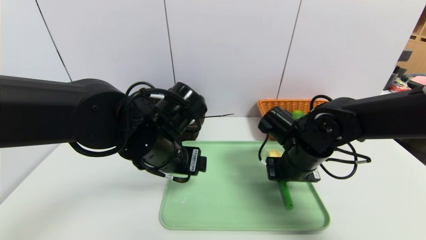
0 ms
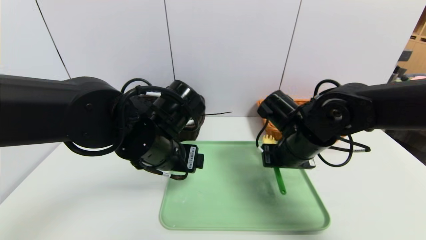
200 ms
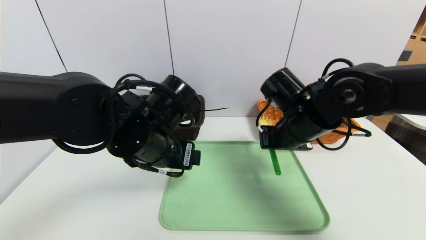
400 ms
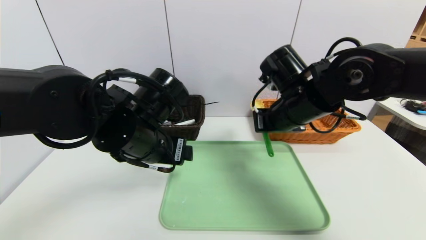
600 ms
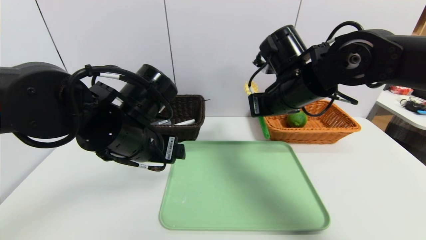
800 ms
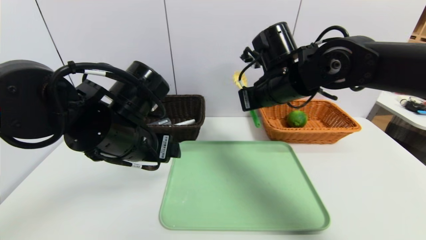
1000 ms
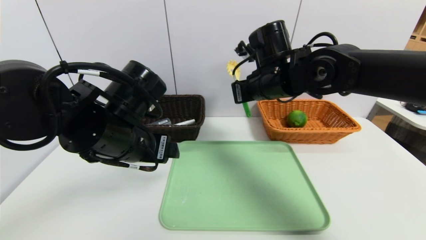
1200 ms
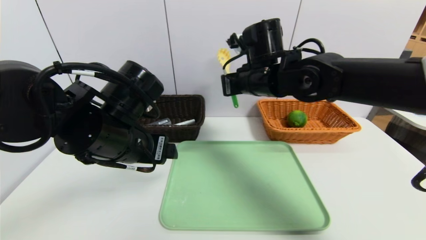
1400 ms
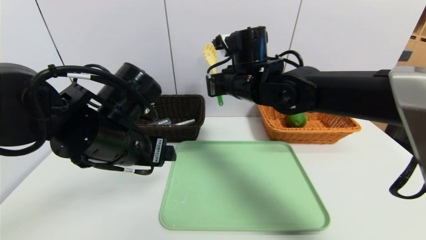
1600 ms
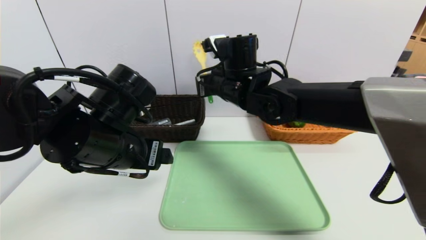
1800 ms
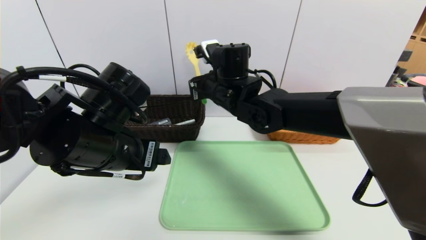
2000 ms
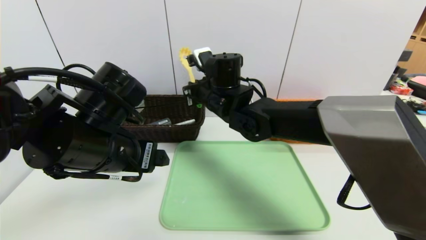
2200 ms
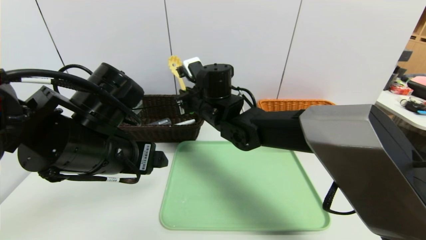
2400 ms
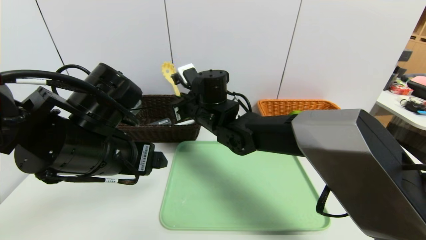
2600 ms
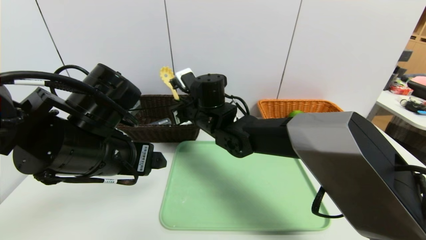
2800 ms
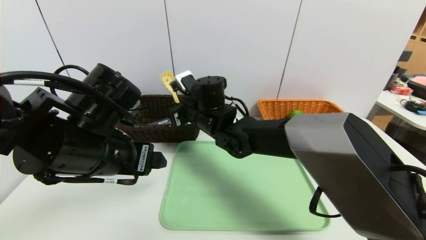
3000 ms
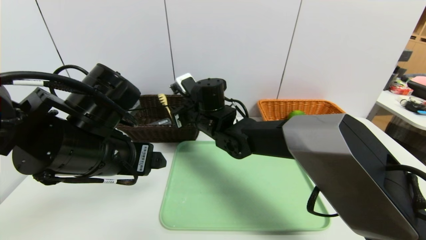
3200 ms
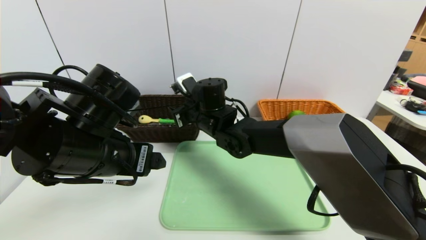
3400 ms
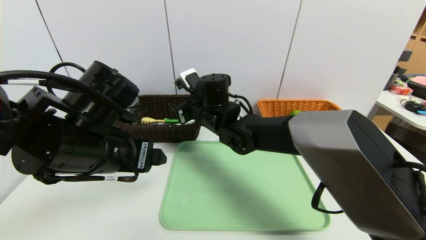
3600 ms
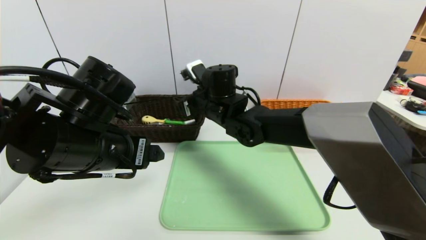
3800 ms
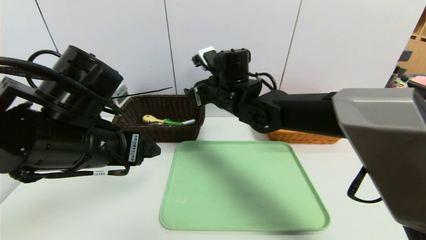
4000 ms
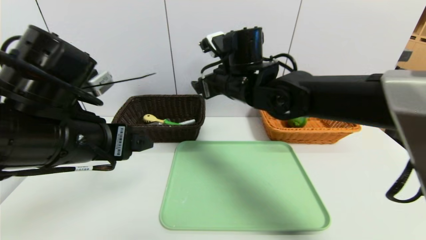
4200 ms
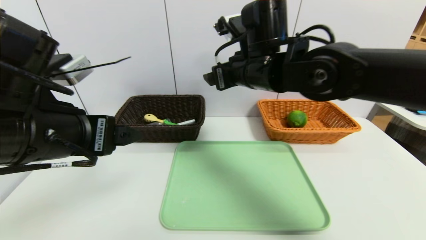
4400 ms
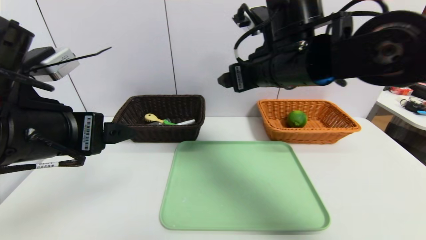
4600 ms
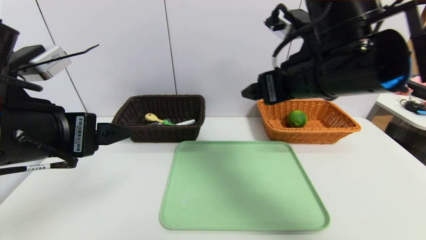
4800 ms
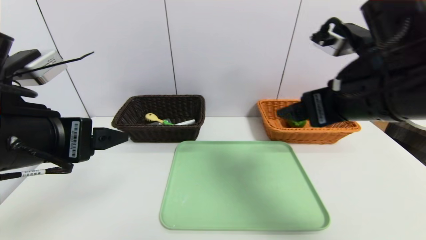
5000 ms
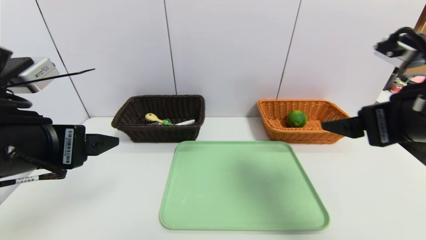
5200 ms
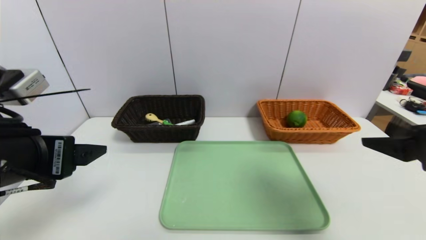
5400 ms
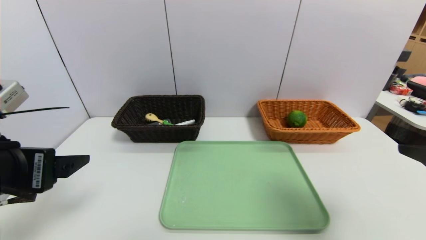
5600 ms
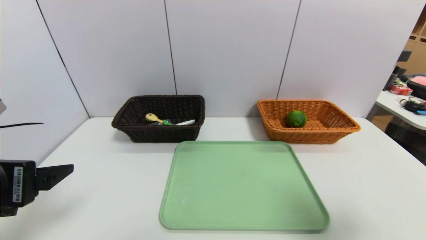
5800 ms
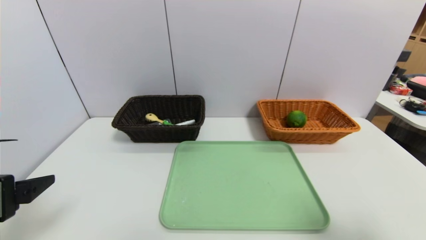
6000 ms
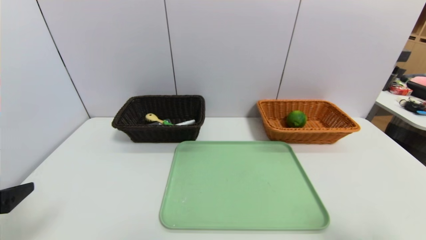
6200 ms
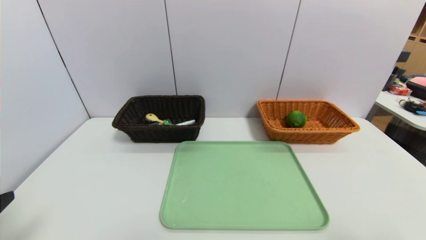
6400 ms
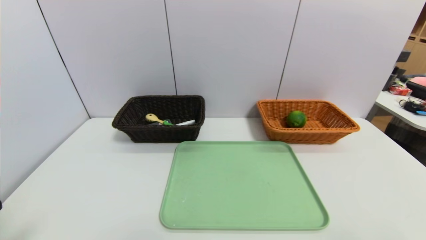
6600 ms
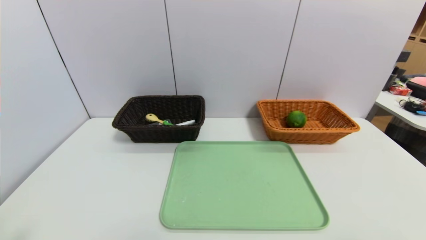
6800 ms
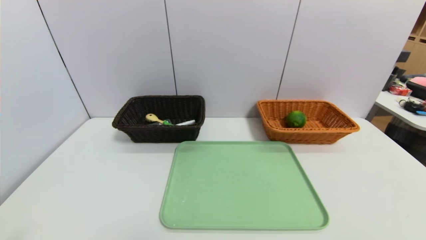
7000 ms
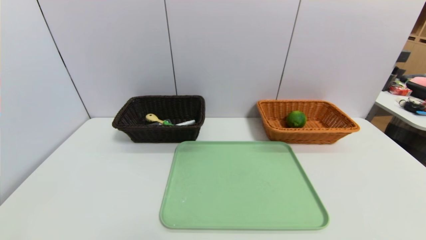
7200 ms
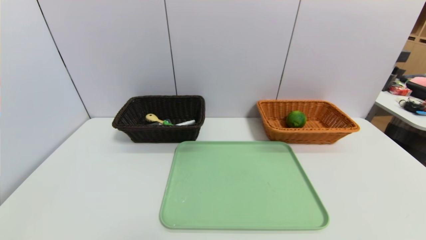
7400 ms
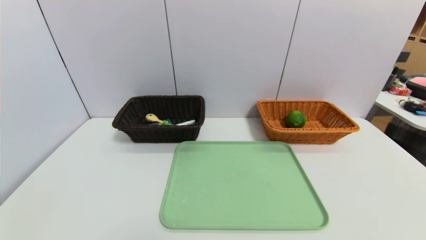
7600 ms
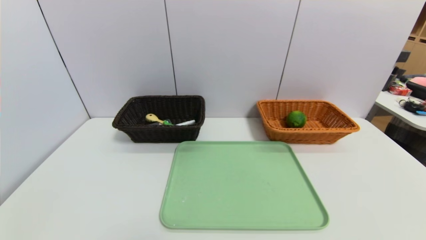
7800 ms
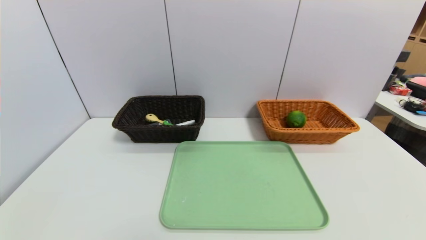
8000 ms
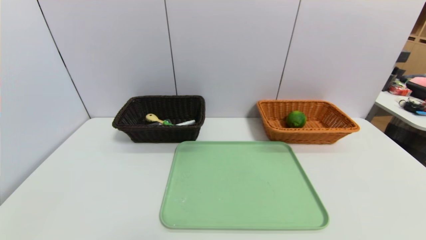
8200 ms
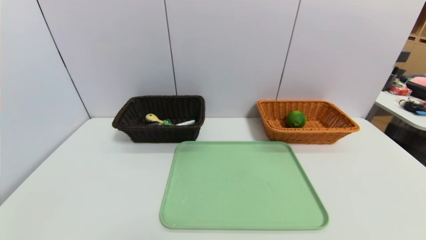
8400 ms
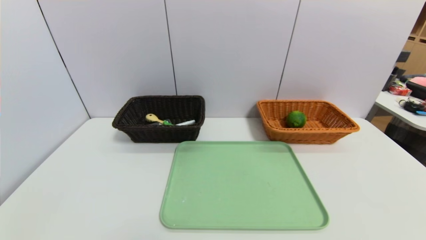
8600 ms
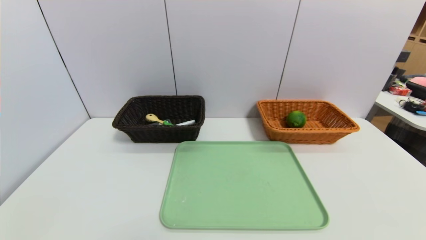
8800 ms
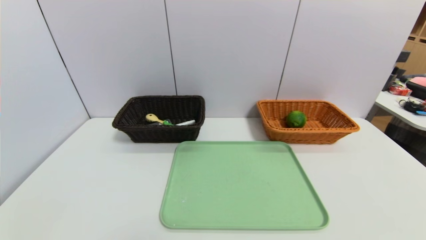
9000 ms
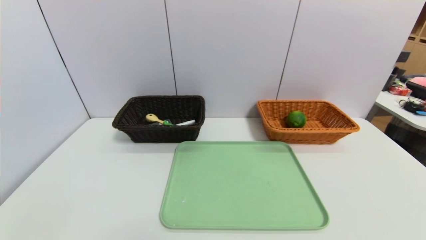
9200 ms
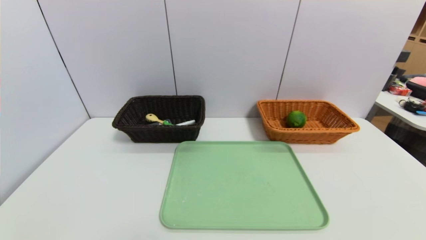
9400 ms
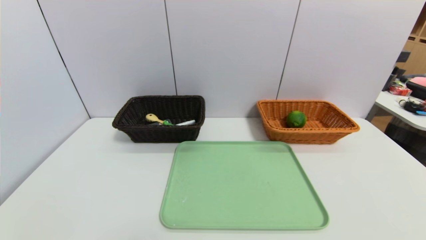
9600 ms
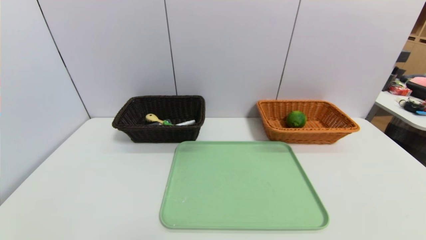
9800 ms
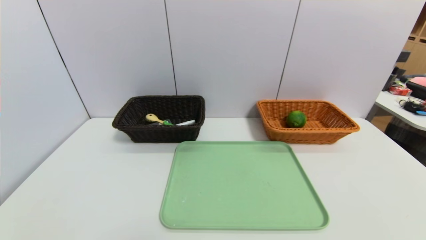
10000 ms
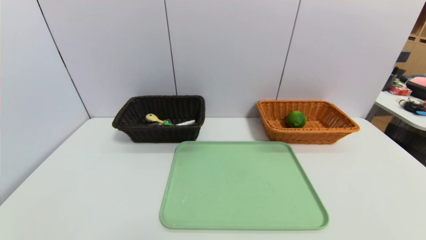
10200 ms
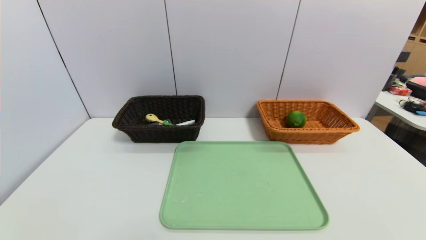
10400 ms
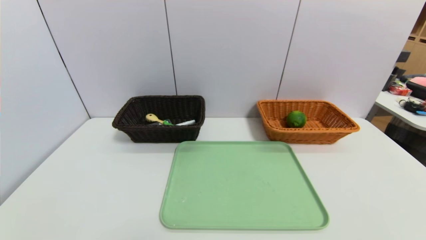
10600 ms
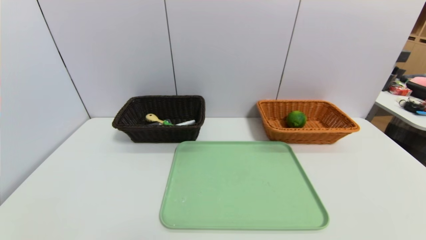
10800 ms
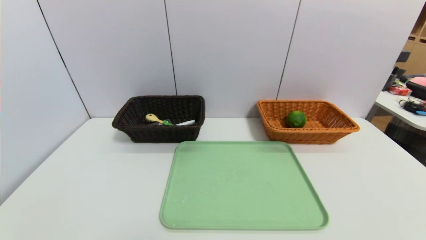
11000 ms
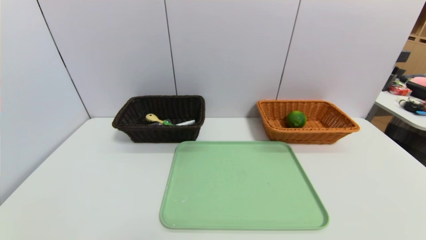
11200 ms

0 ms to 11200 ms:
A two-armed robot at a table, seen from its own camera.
Task of the whole recording: place the food in the right basket with the right gripper, and place the non food items in the left basket with the left gripper.
Step, 0 ms to 4800 ms: Grasp the back scratcher and put it in the left basket.
0 ms to 1600 ms: The left gripper is displaced to the left by about 5 cm. The right gripper is displaced upward, to the left and forward by approximately 15 cm.
1600 ms to 3200 ms: The right gripper is displaced downward and to the left by approximately 10 cm, and opens up.
3200 ms to 4800 ms: The right gripper travels to the right, upward and backward by some 25 cm, and opens up. Meanwhile the left gripper is displaced upward and backward by roughly 10 cm.
4800 ms to 6400 ms: The right gripper shifts roughly 30 cm backward and to the right; the left gripper travels to the left, backward and downward by about 15 cm.
6400 ms to 8000 ms: The left gripper travels backward and downward by some 10 cm.

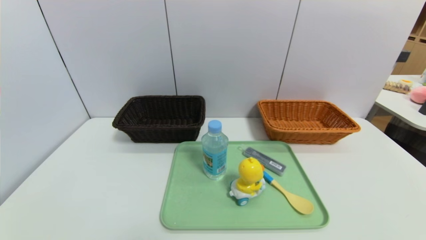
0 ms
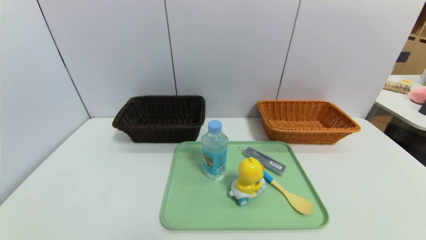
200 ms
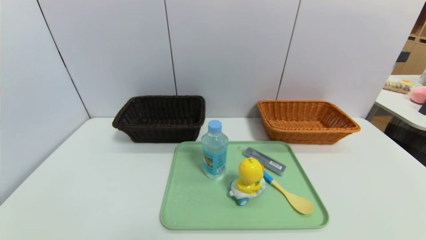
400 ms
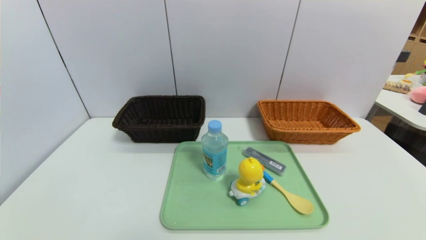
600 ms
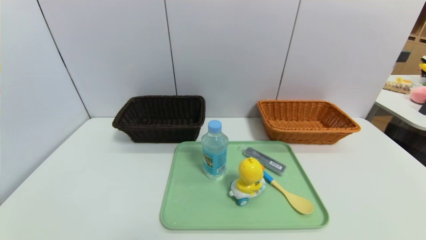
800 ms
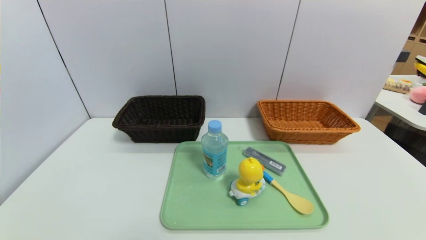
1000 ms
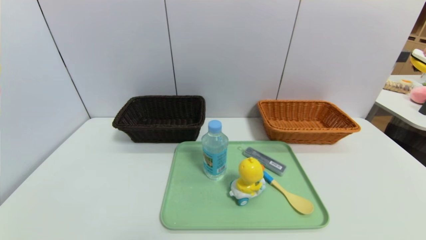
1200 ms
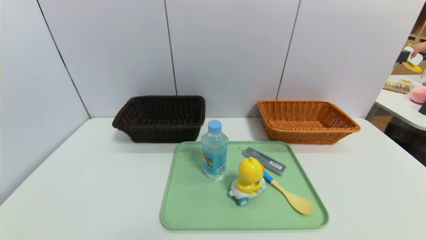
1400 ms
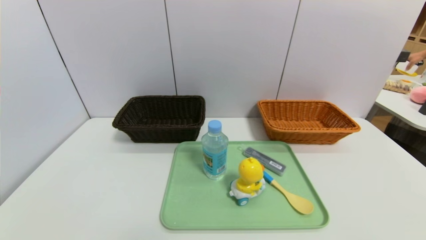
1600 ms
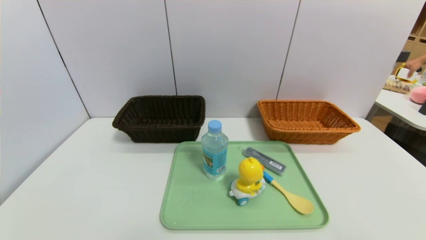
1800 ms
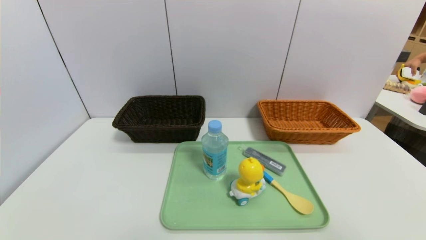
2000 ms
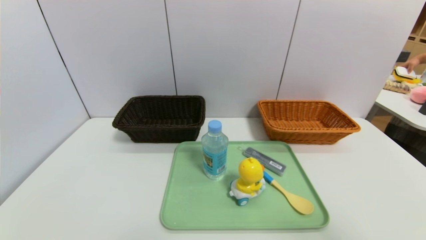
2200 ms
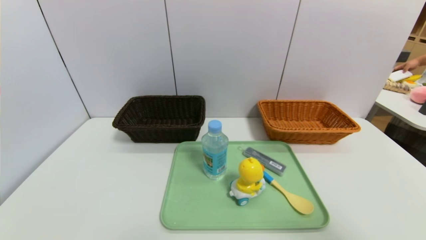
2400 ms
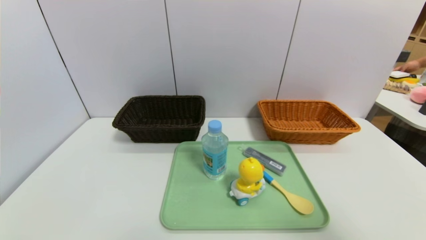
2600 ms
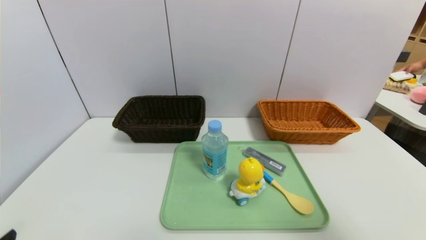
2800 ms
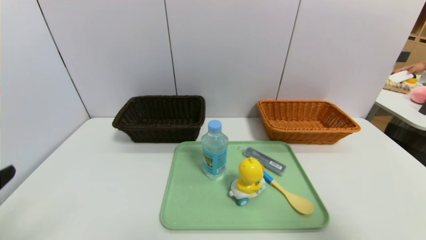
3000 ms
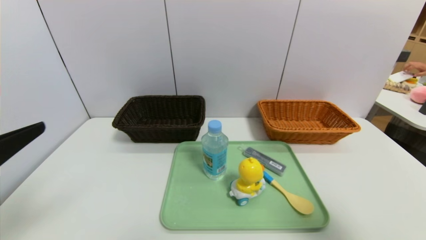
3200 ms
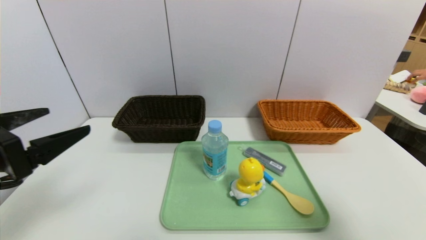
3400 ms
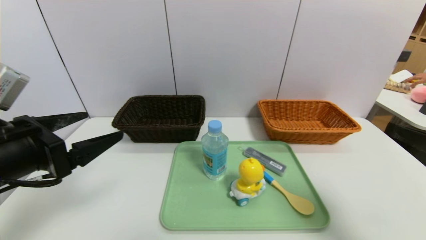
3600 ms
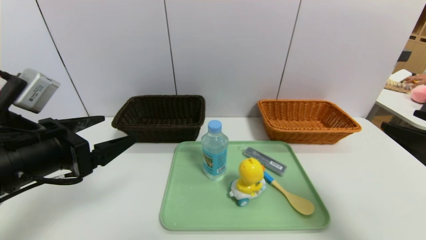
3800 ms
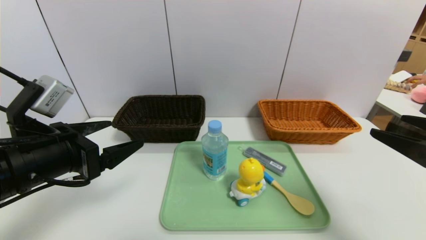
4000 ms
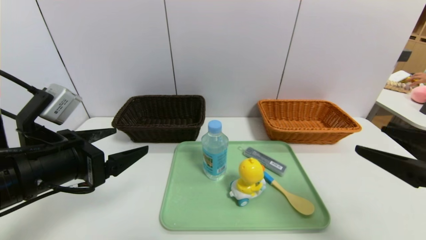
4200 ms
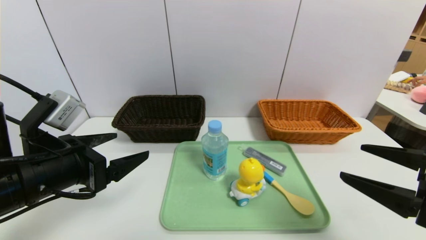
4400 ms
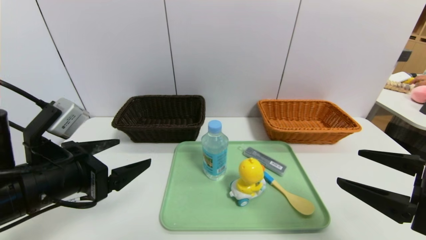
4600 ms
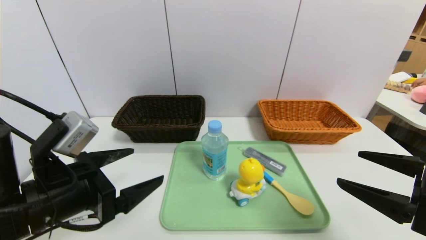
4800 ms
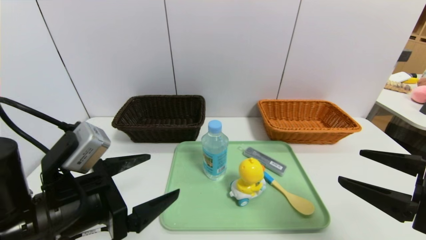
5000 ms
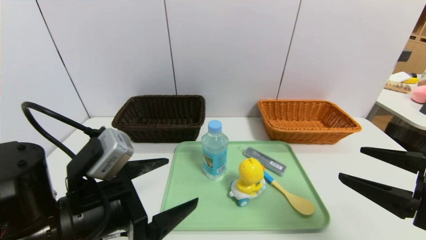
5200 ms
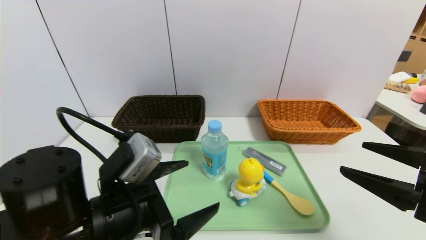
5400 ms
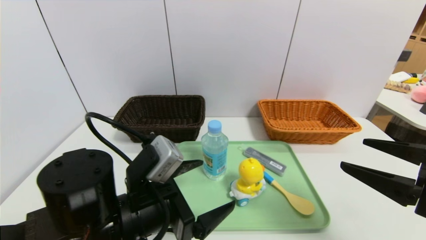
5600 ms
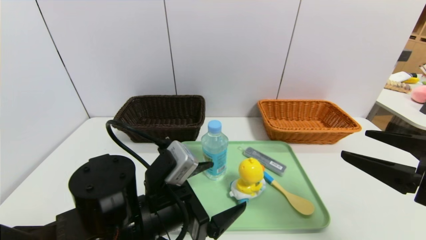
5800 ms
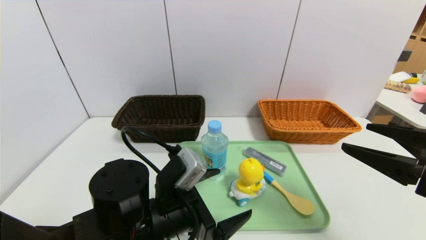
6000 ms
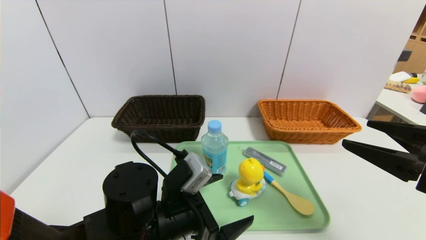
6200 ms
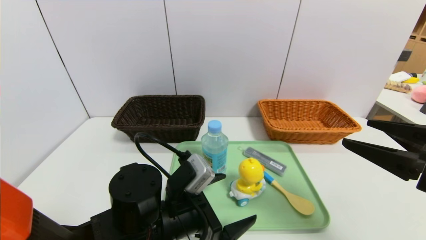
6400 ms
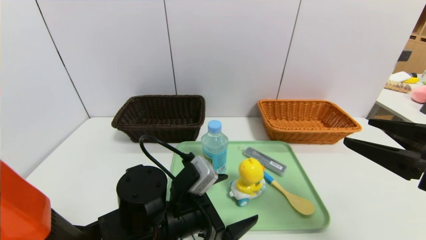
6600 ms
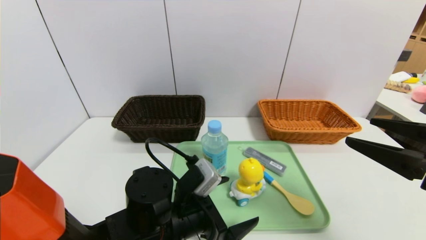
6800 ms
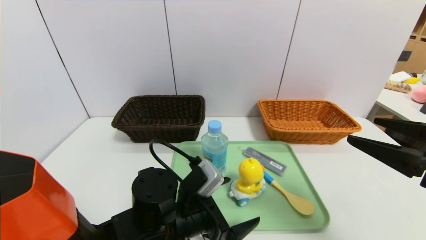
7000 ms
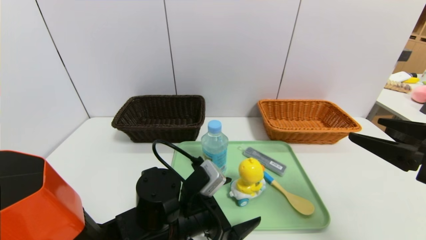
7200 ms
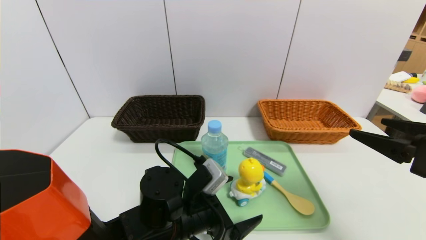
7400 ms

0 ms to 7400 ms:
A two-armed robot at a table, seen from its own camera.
Task of the whole recording: place the food in the right basket with the right gripper, and place the non food items in the left basket with the left gripper.
1400 ms to 3000 ms: The right gripper shifts approximately 15 cm upward and forward.
3000 ms to 4400 ms: The right gripper is displaced forward and downward by some 10 cm. Meanwhile the left gripper shifts roughly 15 cm forward and to the right.
4400 ms to 6000 ms: The left gripper shifts about 15 cm to the right and downward.
6000 ms to 7400 ms: The left gripper changes place by approximately 5 cm.
